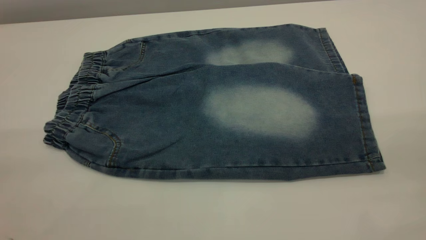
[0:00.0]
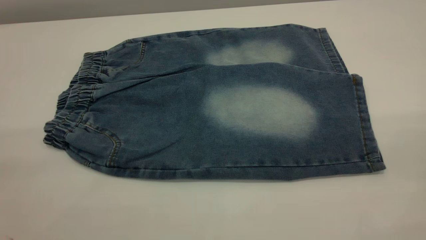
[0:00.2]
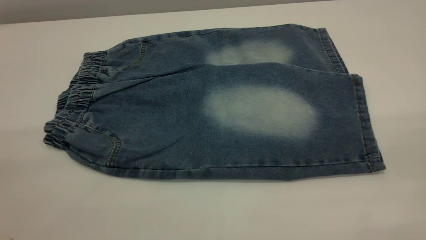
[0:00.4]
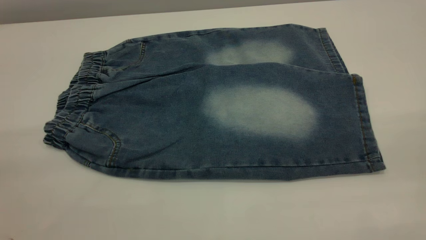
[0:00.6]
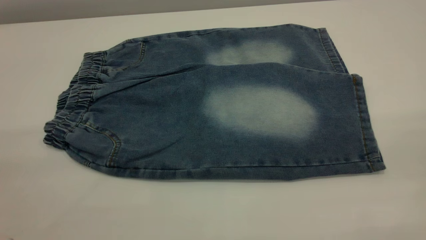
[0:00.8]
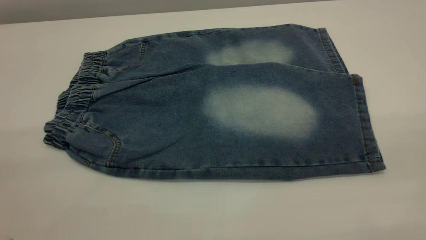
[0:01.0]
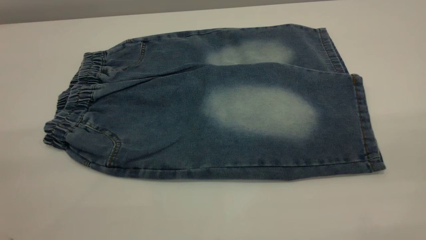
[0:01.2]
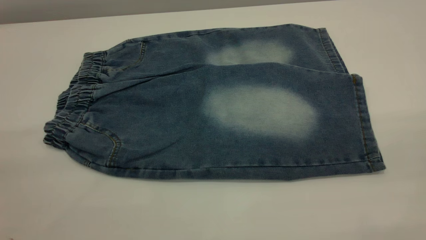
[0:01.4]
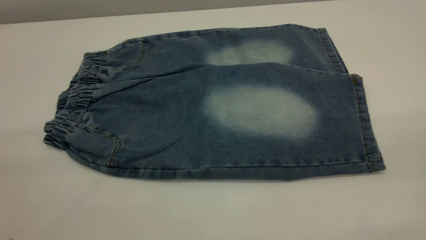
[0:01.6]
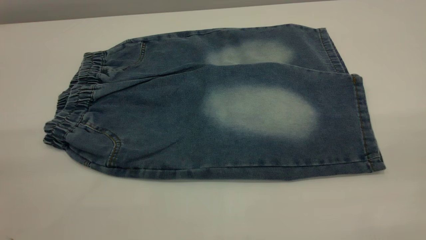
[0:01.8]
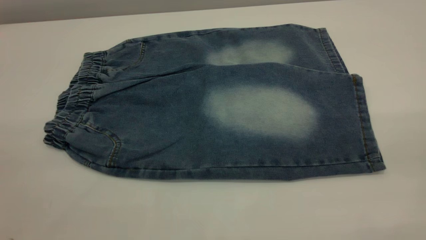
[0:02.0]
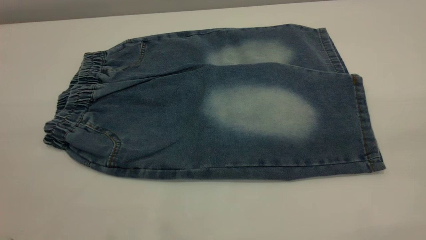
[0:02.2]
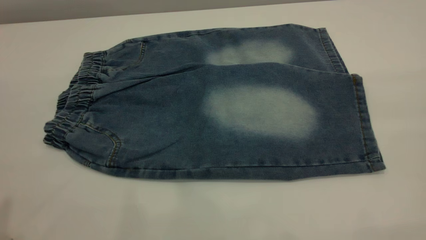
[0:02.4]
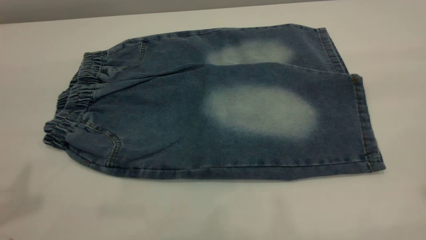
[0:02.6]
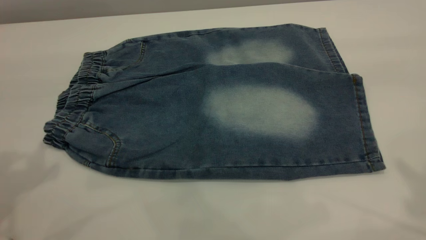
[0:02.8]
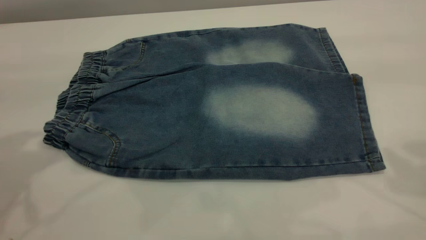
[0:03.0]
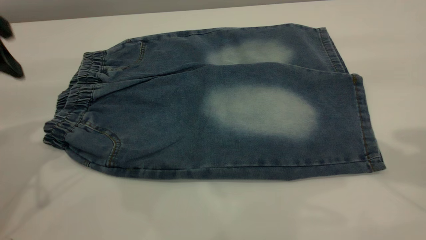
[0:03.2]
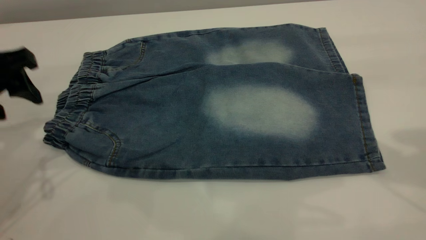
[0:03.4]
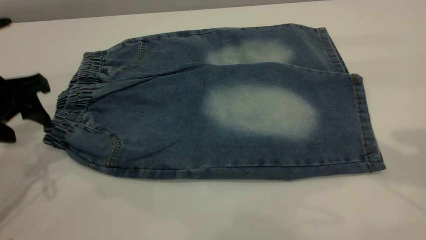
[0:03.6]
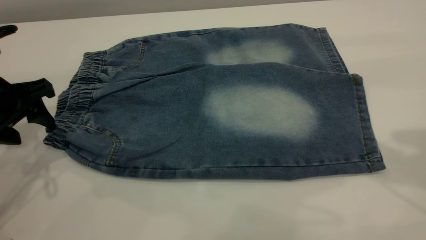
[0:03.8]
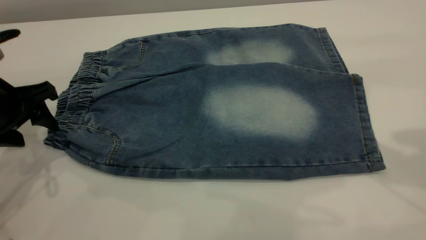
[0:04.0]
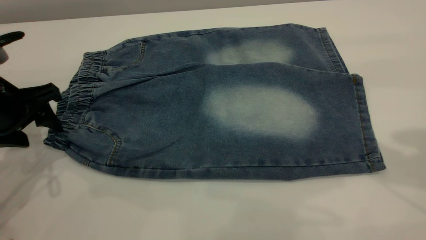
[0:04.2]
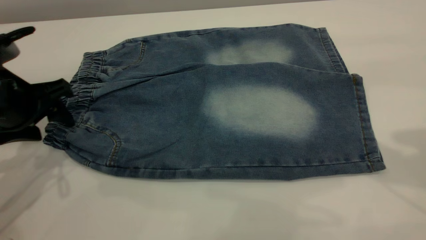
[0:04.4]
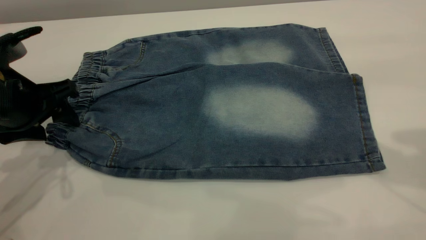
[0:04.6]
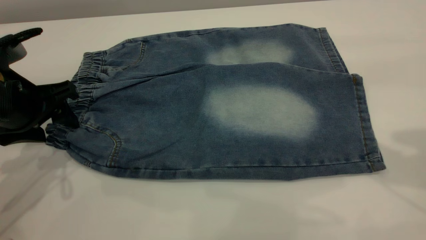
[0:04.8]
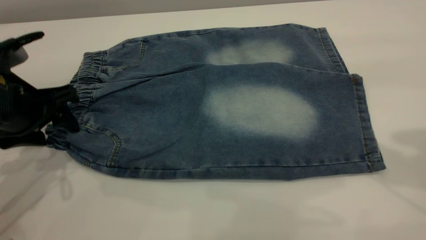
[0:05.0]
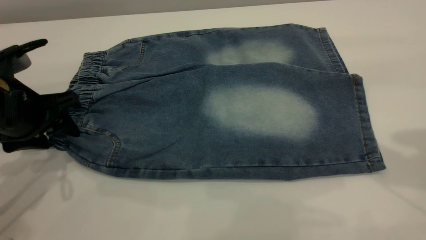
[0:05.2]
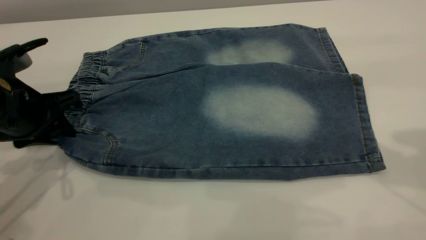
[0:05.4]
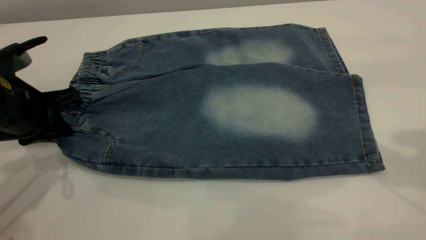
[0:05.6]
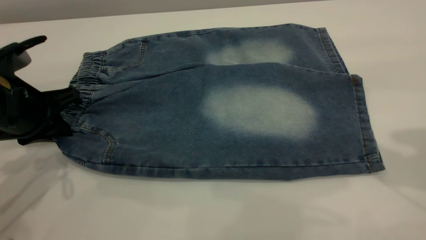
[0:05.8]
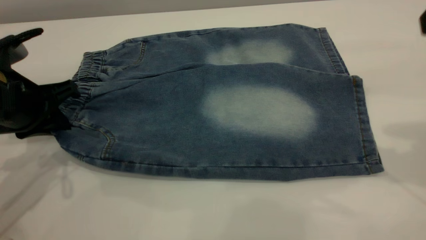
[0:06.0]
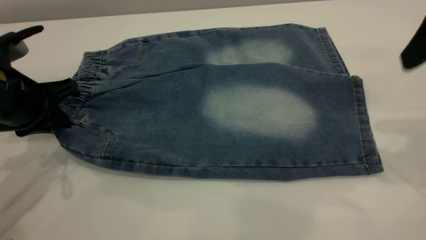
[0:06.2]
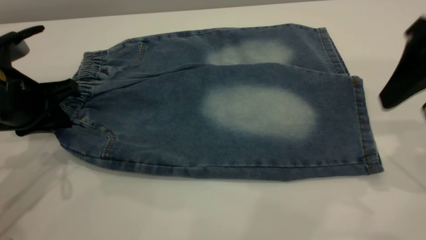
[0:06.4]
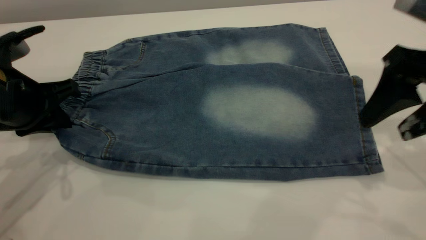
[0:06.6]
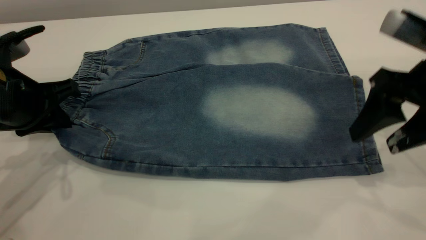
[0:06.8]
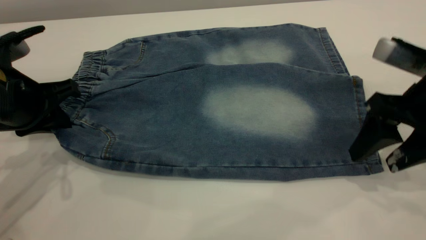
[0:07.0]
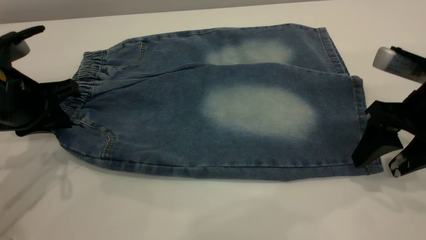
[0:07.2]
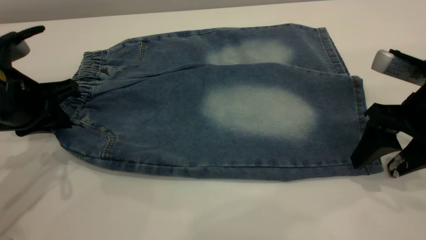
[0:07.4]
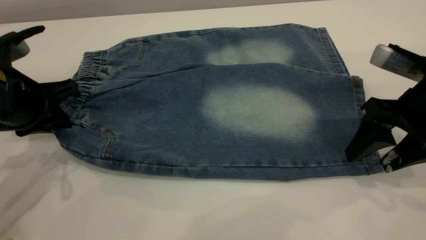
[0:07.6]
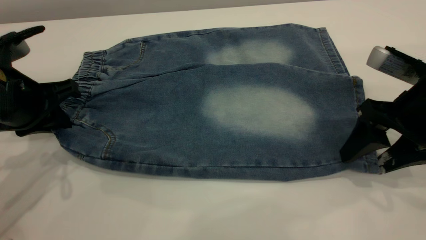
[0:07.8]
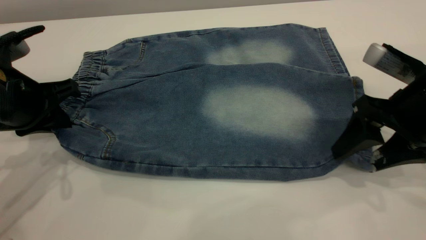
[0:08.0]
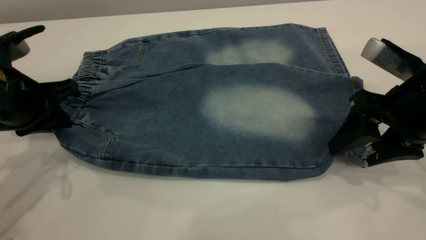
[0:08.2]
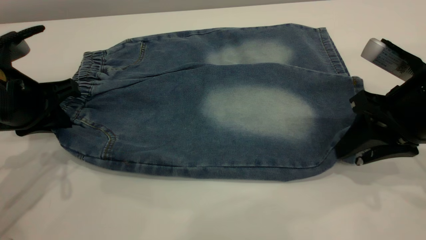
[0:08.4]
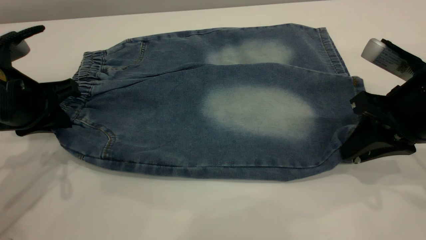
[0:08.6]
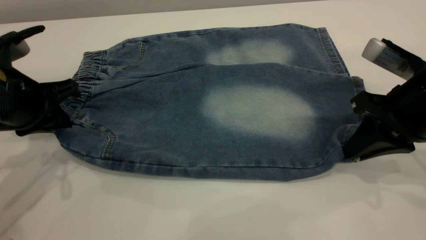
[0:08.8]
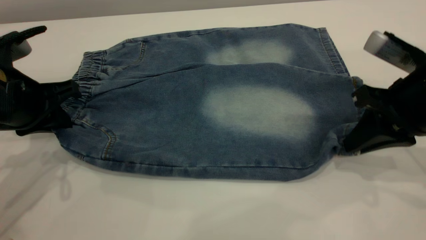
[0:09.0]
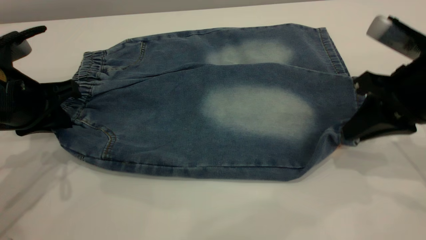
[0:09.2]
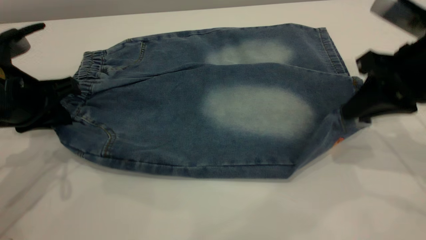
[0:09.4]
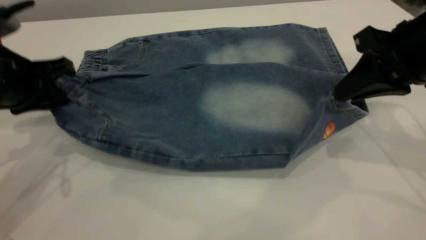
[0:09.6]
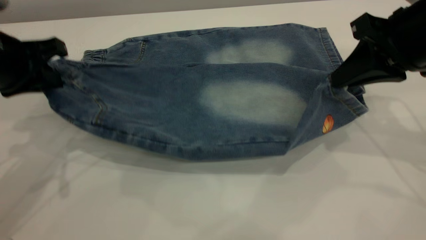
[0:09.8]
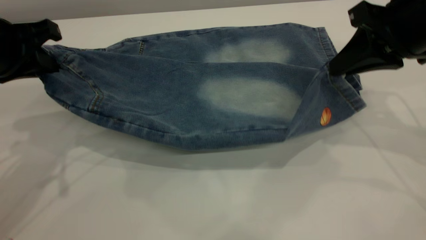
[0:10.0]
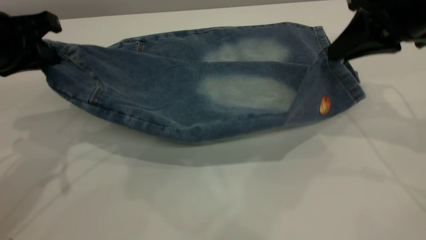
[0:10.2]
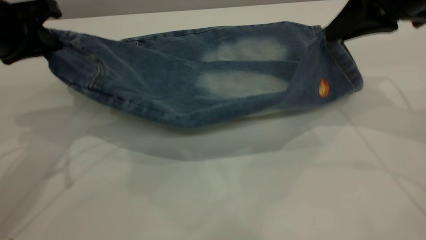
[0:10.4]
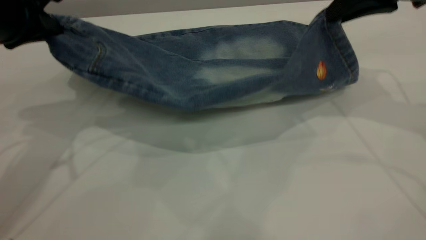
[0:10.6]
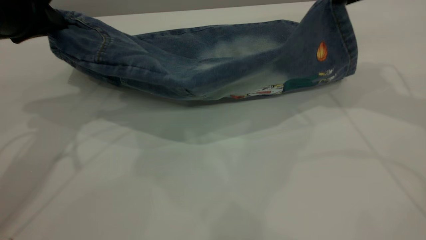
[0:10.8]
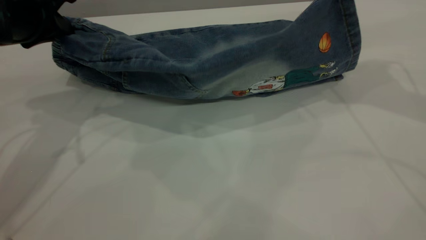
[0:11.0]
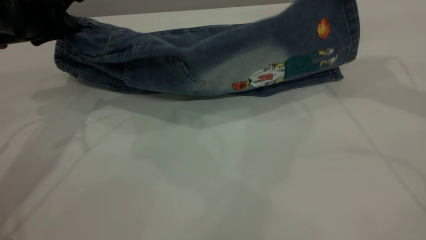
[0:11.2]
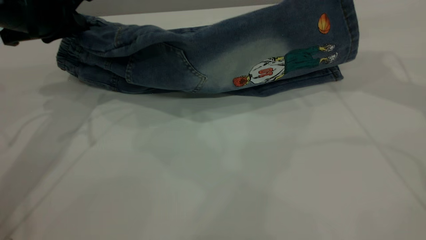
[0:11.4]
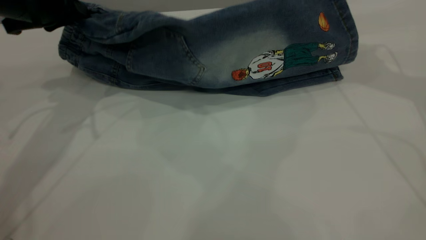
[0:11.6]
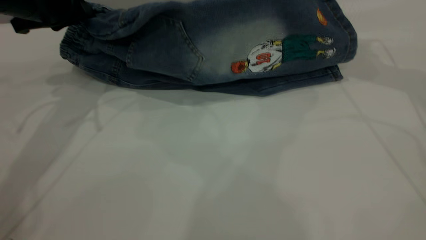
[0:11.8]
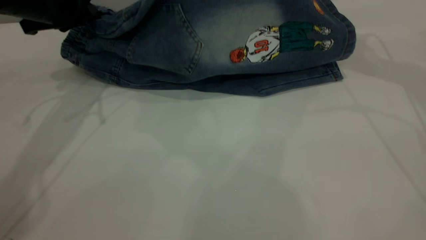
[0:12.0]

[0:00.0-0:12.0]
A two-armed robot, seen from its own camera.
0:00.0 to 0:01.6: Both grippers stay put.
0:03.0 to 0:04.4: The left gripper heads downward, covering some 15 cm.
0:04.4 to 0:06.0: The left gripper closes its fingers.
0:06.0 to 0:07.6: The right gripper moves downward, about 15 cm.
0:07.6 to 0:09.0: The right gripper closes.
0:09.0 to 0:10.4: The right gripper shifts roughly 15 cm upward and forward. Meanwhile the left gripper moves upward, roughly 10 cm.
0:10.4 to 0:12.0: Both grippers travel together forward, roughly 10 cm.

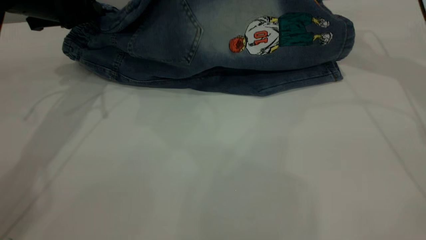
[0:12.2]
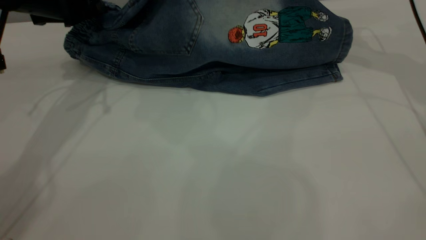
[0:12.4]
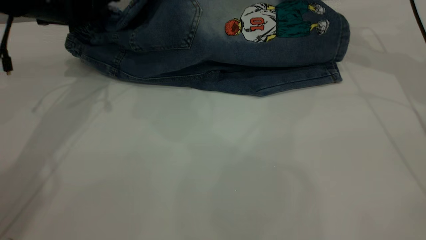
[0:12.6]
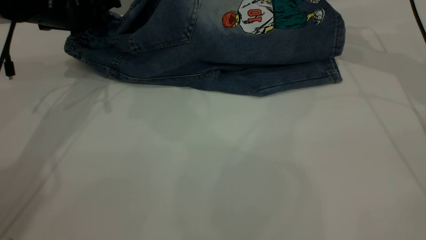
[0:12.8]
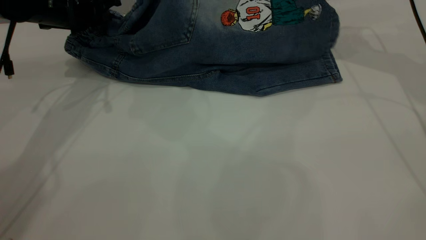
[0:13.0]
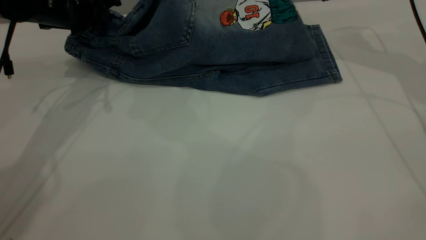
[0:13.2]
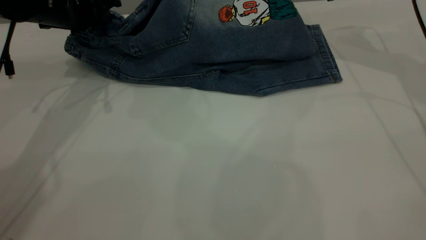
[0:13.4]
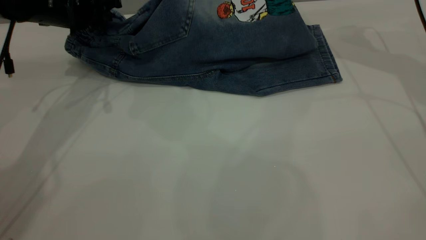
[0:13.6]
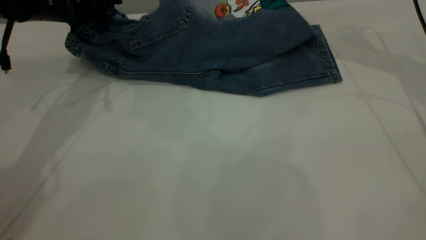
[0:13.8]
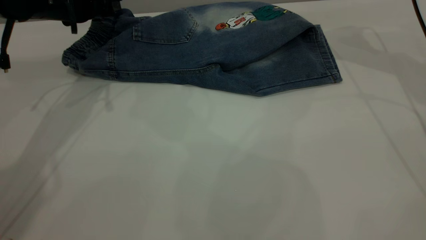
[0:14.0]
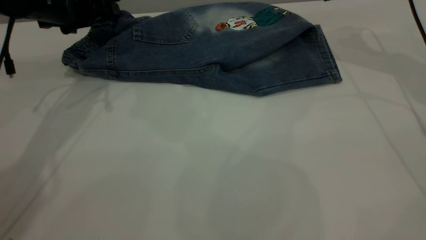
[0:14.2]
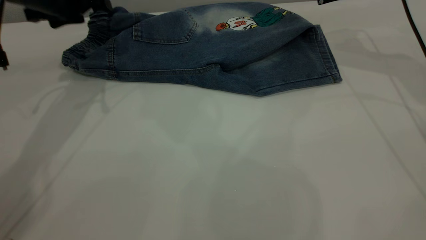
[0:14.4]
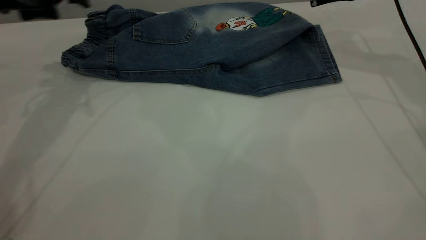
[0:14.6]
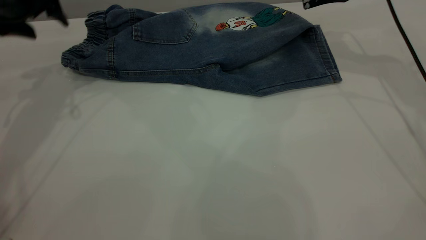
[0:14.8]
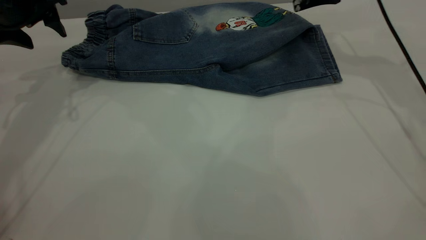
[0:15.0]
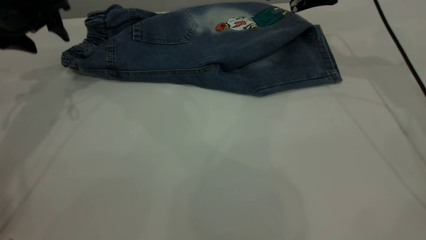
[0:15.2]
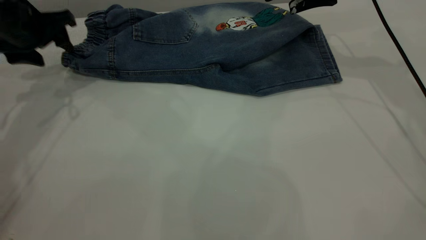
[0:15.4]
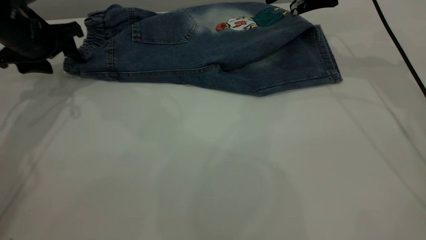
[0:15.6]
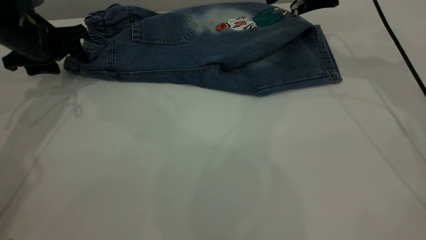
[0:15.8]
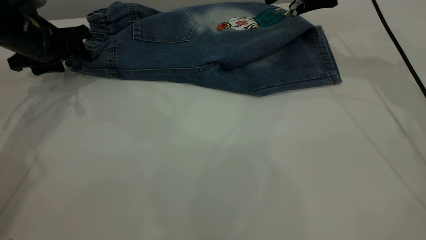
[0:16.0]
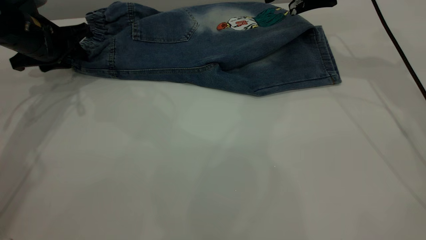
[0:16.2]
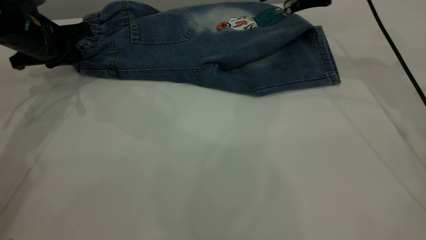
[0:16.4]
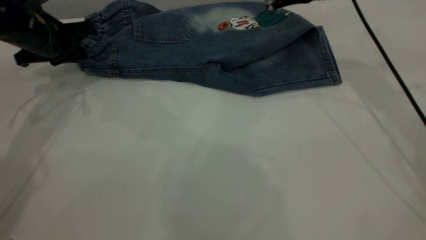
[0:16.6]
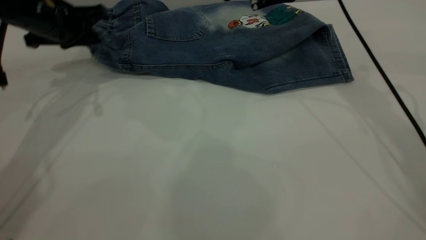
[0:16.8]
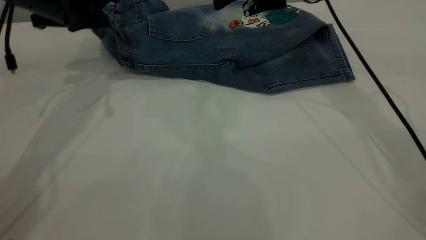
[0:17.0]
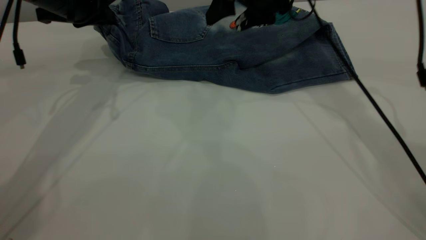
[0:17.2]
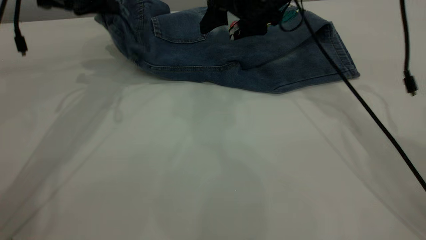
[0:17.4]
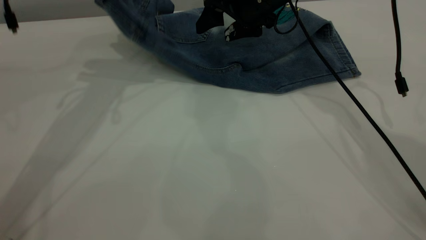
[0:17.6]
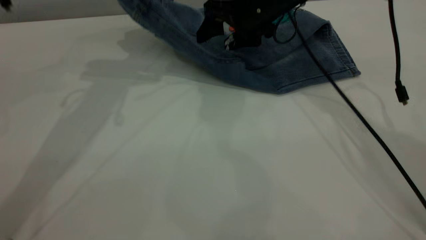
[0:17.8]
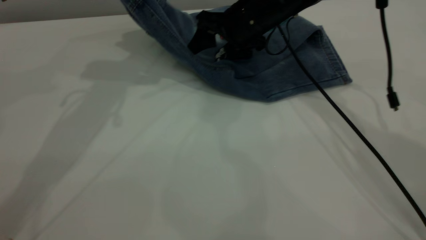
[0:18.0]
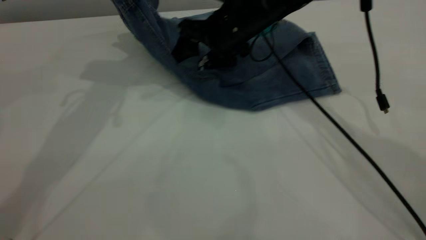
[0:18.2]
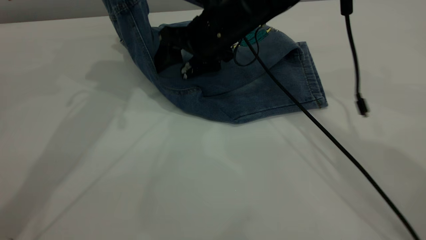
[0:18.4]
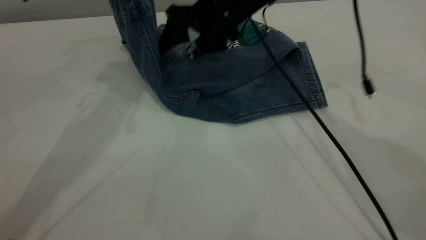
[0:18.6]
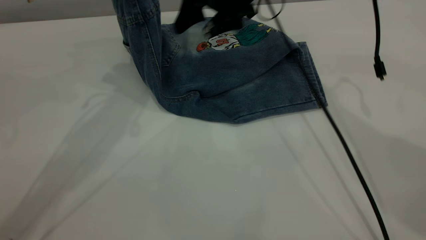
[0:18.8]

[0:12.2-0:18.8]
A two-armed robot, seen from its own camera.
Step, 0:12.2 to 0:14.6: Fold the bottom of the pants upward.
0:12.2 to 0:13.8: The right gripper opens its fingers. Meanwhile the left gripper opens up.
0:13.8 to 0:15.4: Both grippers move to the left, about 5 cm. The left gripper opens its fingers.
0:15.4 to 0:17.2: The left gripper moves to the right, roughly 10 cm, and closes its fingers, while the right gripper moves to the left, some 10 cm.
0:17.2 to 0:18.8: The left gripper is displaced upward and to the right by some 10 cm.
